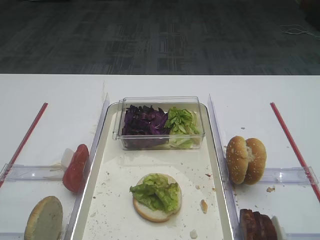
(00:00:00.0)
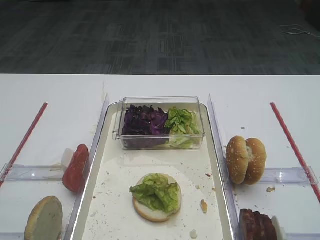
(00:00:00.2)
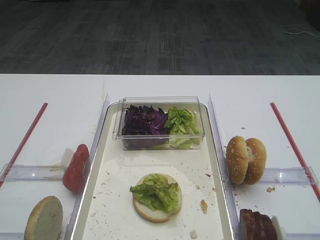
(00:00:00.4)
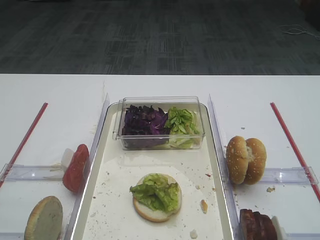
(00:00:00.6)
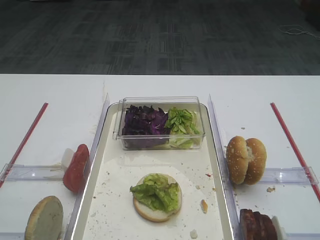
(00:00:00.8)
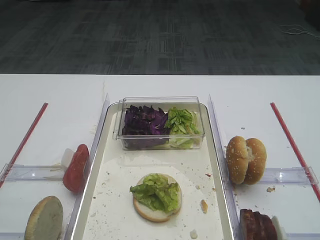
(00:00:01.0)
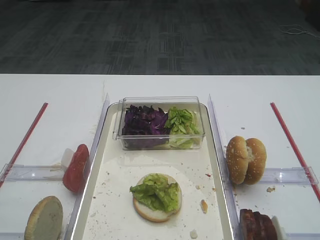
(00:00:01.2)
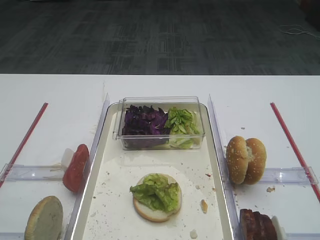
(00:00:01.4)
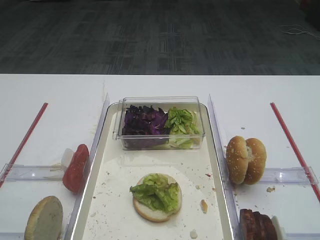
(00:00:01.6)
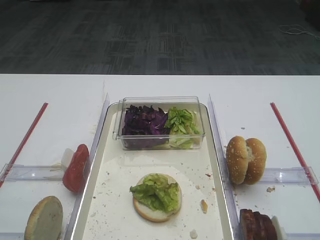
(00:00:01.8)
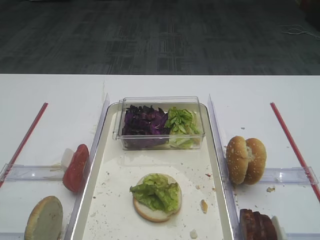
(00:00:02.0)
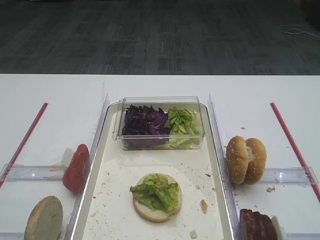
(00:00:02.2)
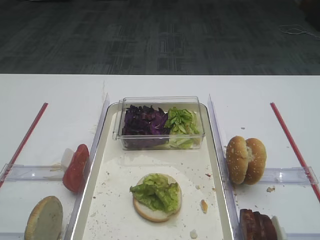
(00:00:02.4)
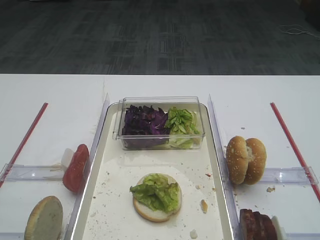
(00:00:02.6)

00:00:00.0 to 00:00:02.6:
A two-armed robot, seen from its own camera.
00:00:01.2 to 00:00:02.6: The two grippers keep their place.
